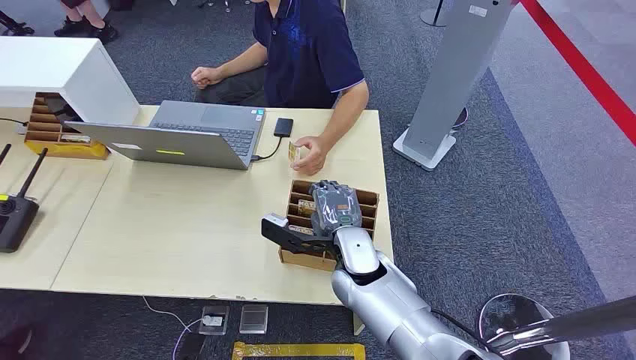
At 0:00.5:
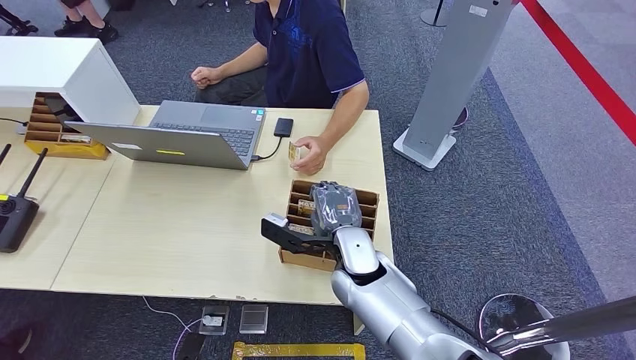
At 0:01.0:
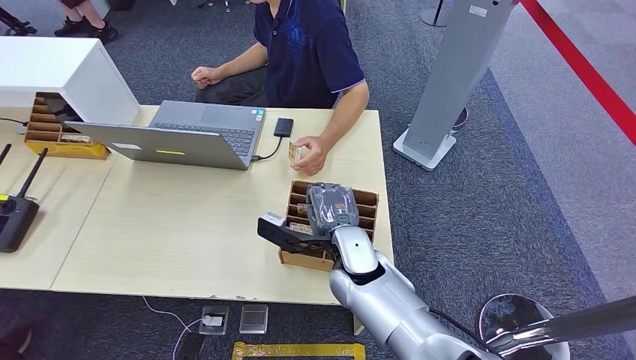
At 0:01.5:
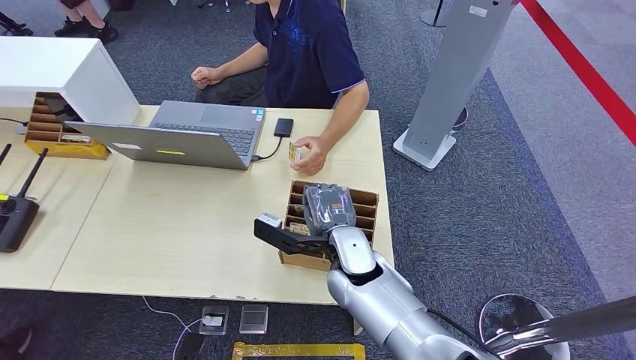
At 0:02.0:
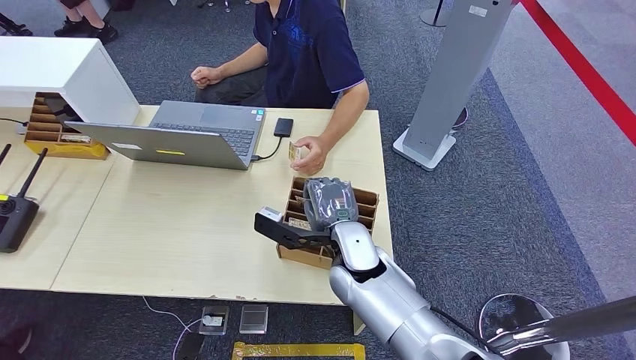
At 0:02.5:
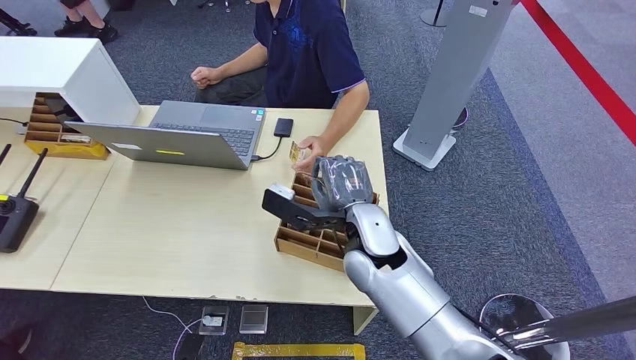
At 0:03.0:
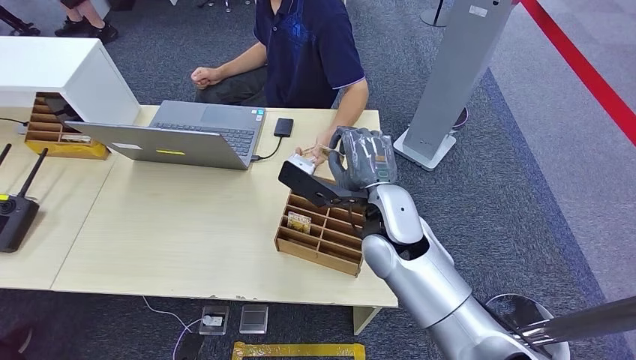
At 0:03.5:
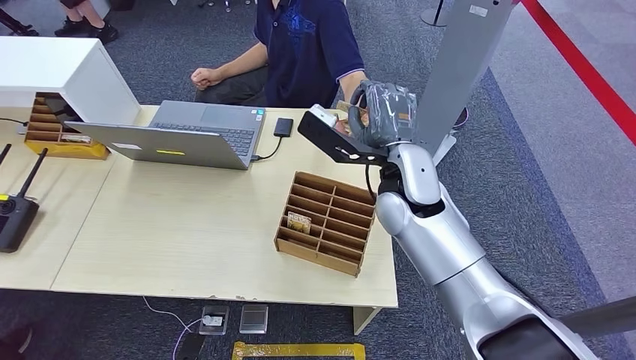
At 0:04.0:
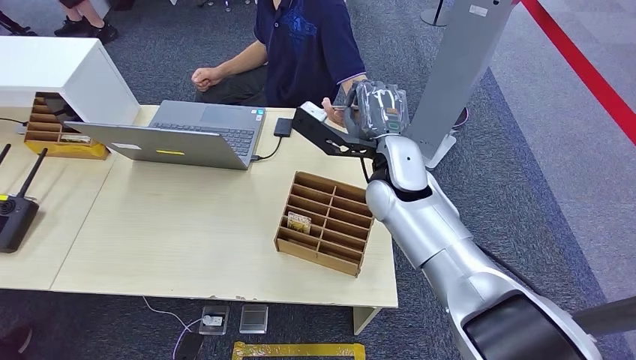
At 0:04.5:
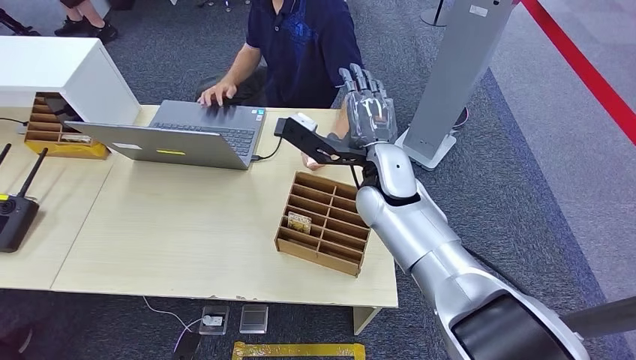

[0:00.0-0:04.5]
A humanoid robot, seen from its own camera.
Step, 0:00.0 to 0:02.0: Pick up the key card from the card box.
Step, 0:03.5 to 0:04.5: Hand the key card to the target.
0:02.0 to 0:04.5: The right hand travels upward and forward by some 15 cm.
